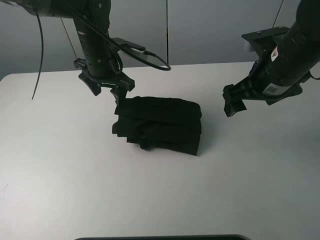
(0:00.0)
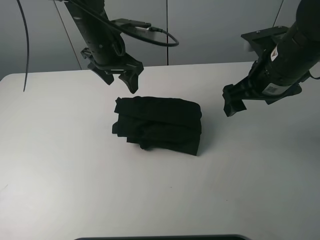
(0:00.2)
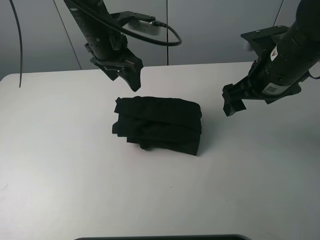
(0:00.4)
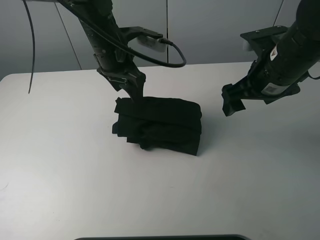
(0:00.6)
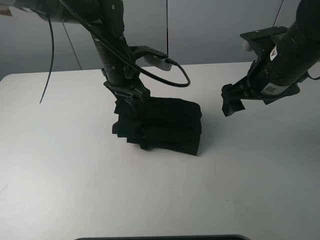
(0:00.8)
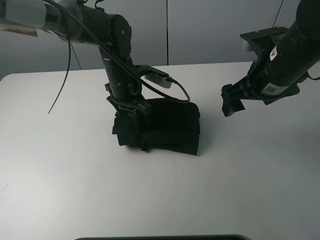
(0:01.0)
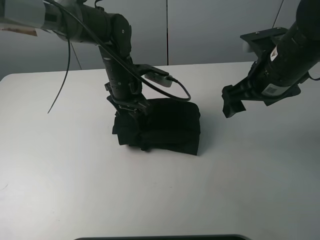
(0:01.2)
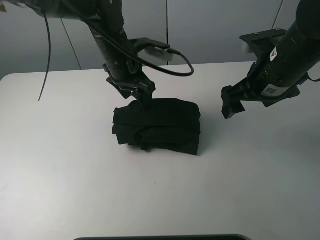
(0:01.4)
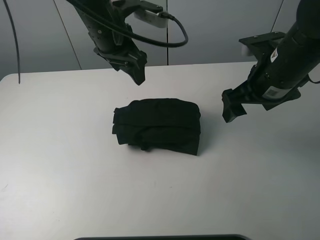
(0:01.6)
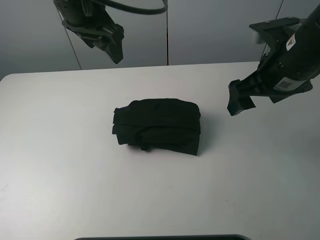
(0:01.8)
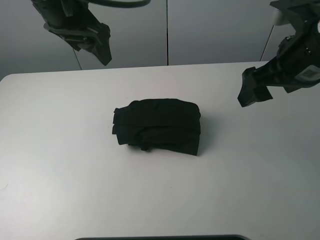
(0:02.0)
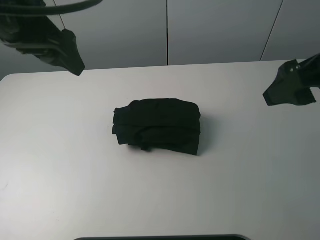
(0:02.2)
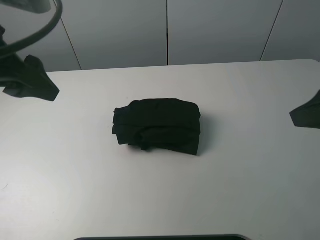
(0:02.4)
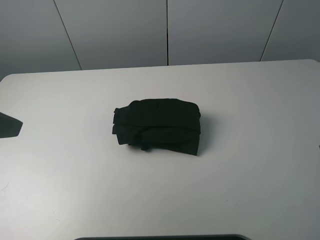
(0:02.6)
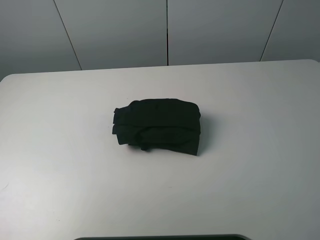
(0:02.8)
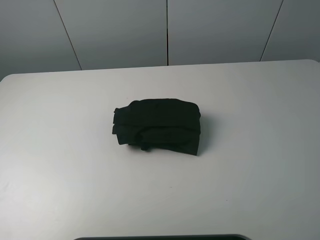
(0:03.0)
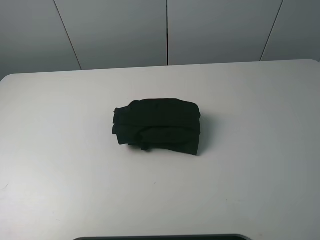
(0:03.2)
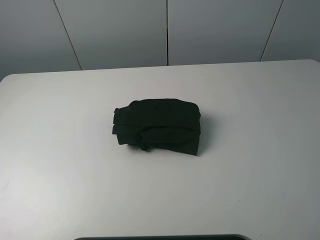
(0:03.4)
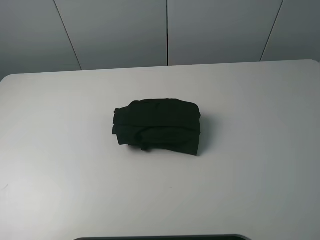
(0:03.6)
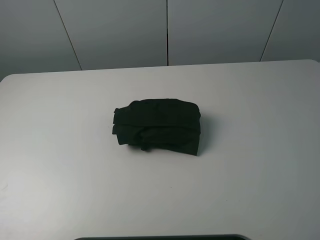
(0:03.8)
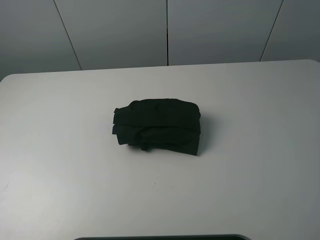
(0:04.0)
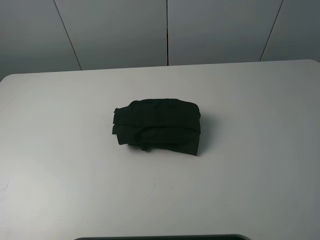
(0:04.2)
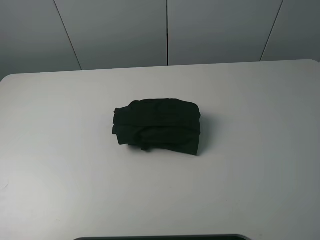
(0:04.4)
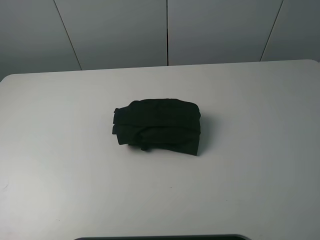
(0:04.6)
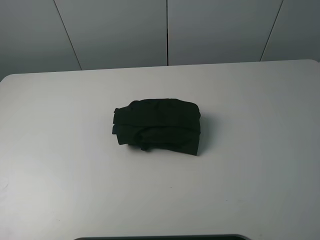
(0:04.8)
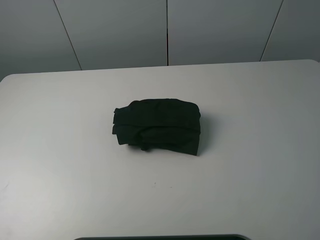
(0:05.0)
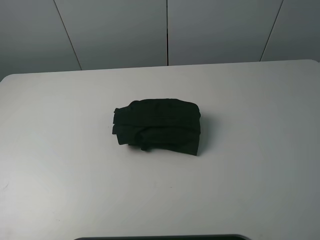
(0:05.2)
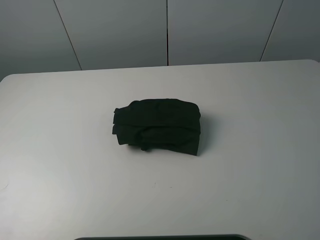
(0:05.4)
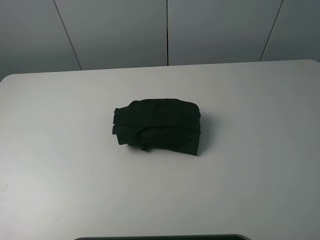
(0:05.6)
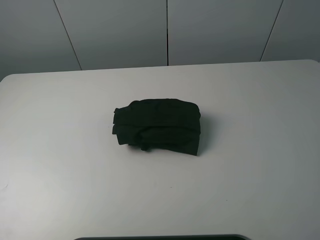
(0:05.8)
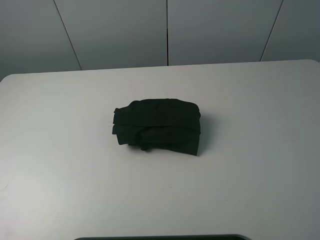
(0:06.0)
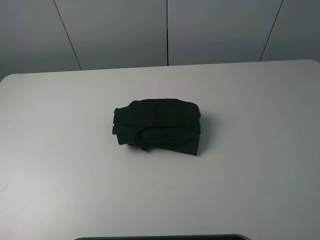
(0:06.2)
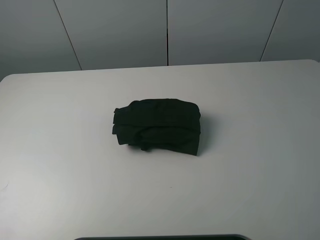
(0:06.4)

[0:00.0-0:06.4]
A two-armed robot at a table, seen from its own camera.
Task of the whole recording: fold the clothes on the table.
0:00.0 to 0:01.6: The left gripper swings up and down, approximately 15 cm each way, with 2 reversals.
0:01.6 to 0:03.2: The right gripper goes approximately 25 cm backward; the left gripper travels backward and to the left by roughly 40 cm.

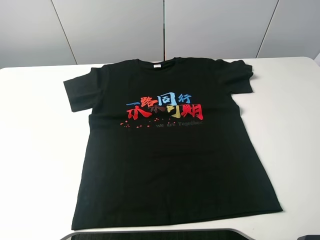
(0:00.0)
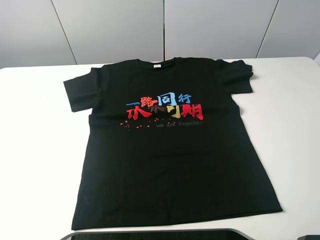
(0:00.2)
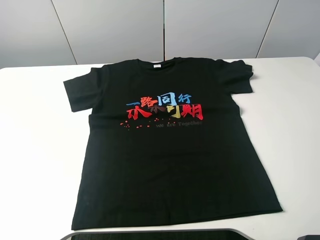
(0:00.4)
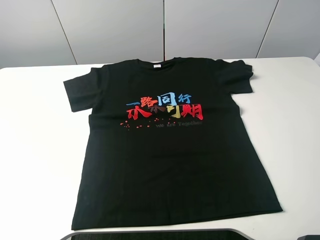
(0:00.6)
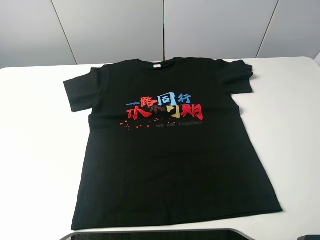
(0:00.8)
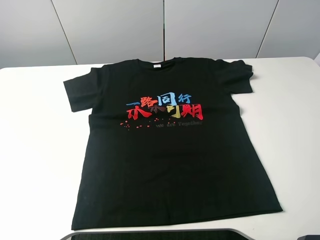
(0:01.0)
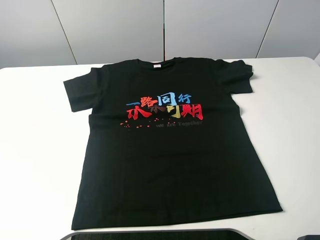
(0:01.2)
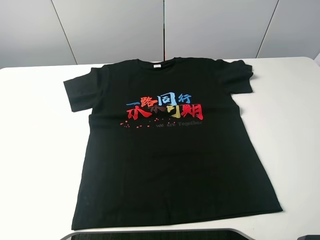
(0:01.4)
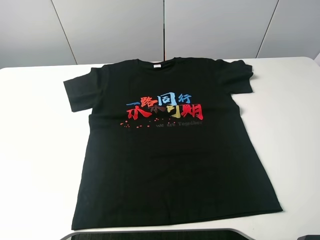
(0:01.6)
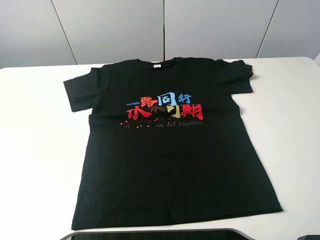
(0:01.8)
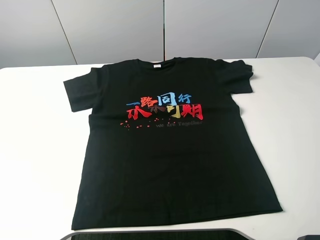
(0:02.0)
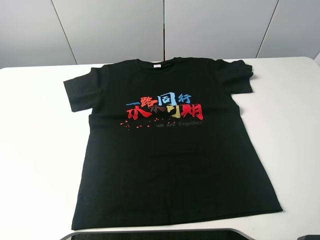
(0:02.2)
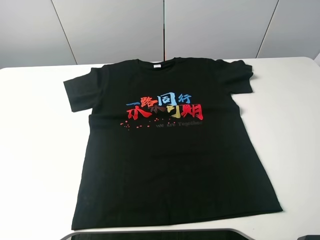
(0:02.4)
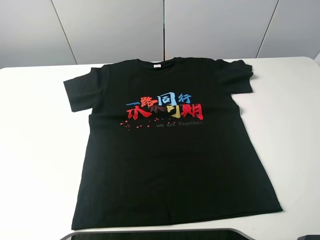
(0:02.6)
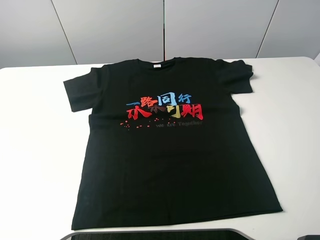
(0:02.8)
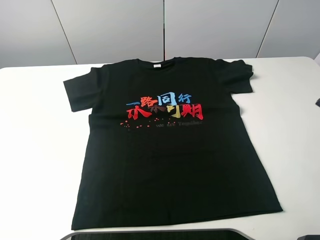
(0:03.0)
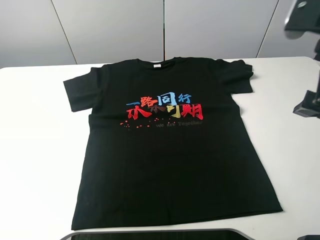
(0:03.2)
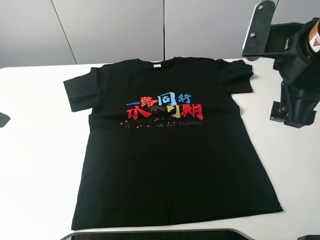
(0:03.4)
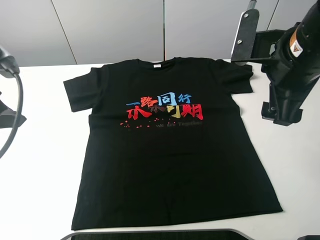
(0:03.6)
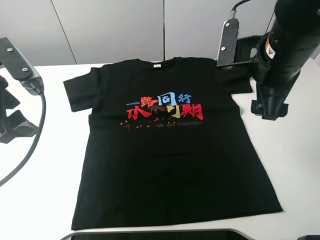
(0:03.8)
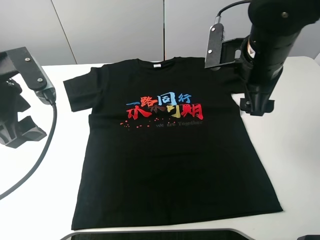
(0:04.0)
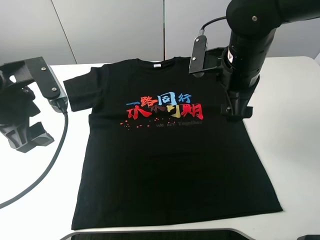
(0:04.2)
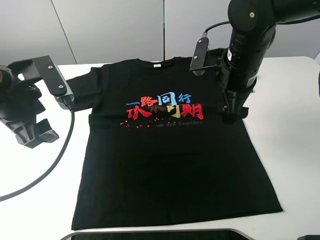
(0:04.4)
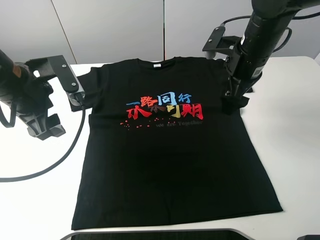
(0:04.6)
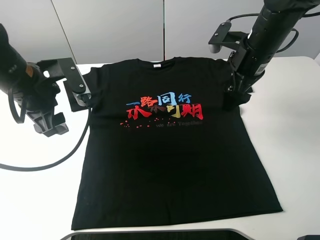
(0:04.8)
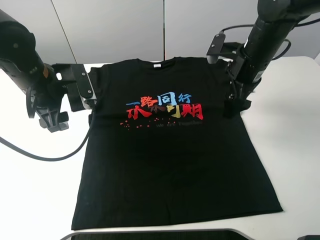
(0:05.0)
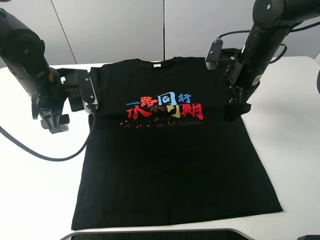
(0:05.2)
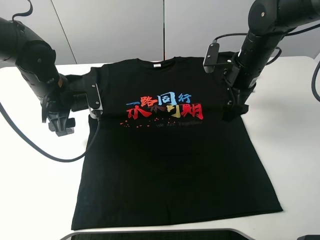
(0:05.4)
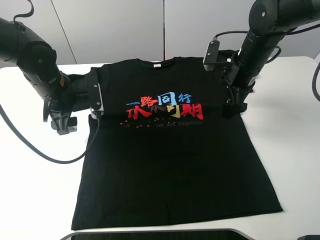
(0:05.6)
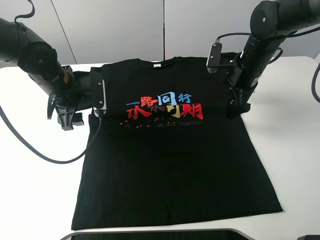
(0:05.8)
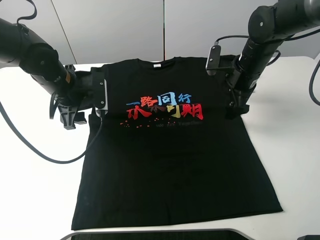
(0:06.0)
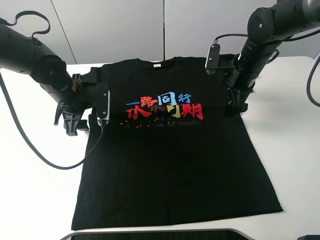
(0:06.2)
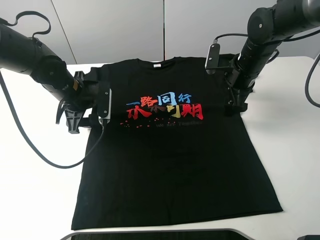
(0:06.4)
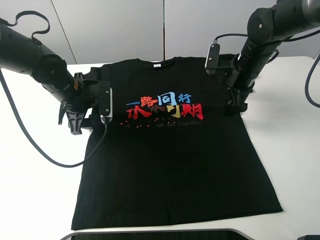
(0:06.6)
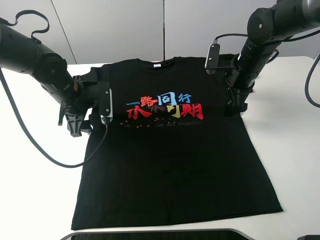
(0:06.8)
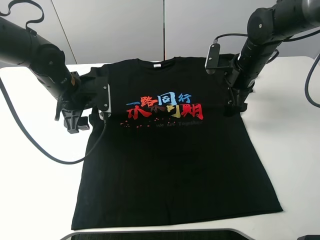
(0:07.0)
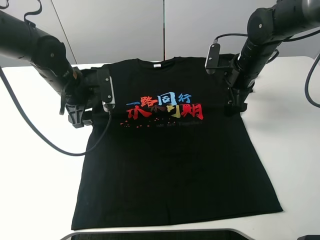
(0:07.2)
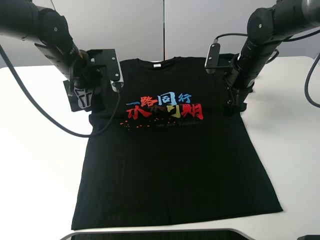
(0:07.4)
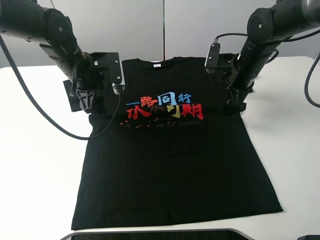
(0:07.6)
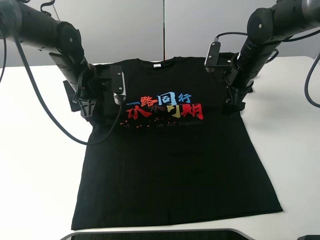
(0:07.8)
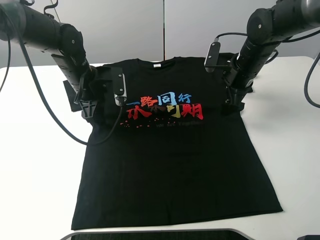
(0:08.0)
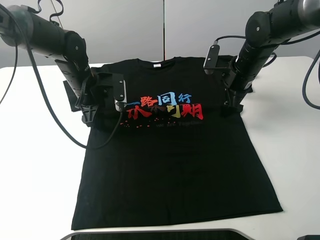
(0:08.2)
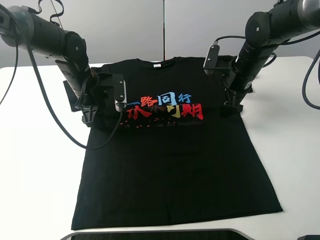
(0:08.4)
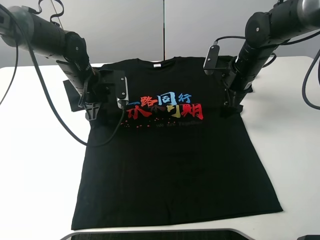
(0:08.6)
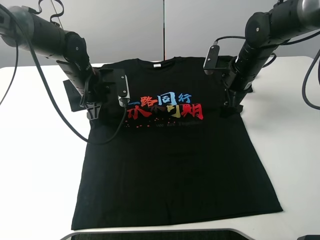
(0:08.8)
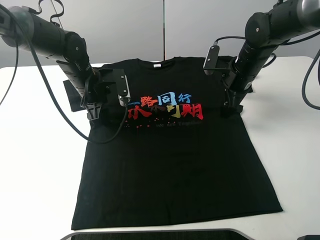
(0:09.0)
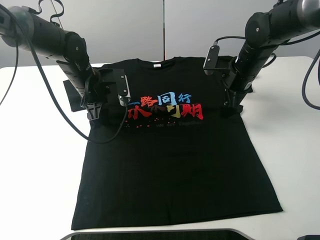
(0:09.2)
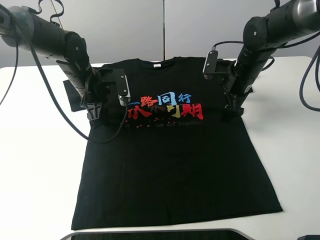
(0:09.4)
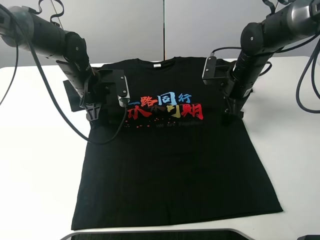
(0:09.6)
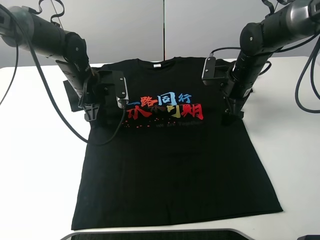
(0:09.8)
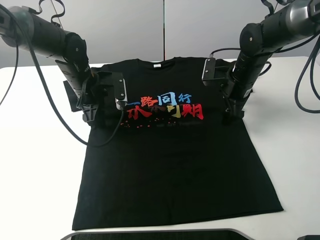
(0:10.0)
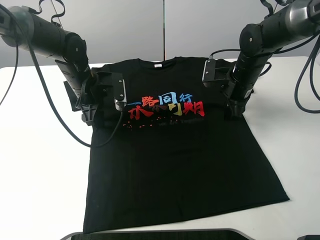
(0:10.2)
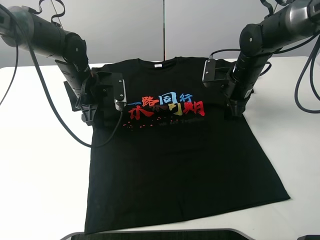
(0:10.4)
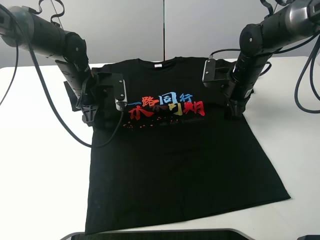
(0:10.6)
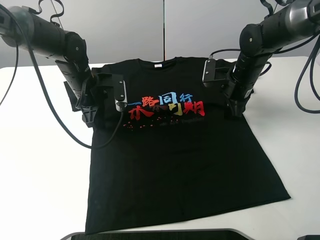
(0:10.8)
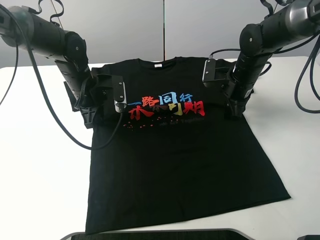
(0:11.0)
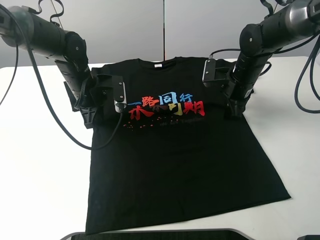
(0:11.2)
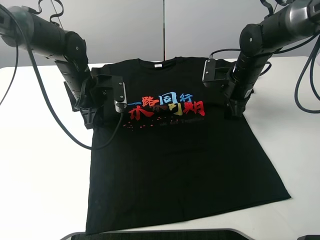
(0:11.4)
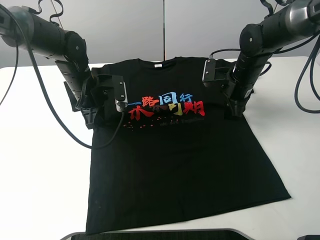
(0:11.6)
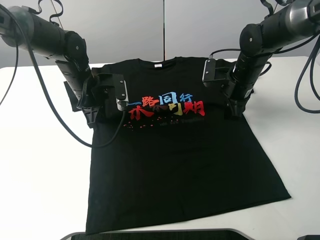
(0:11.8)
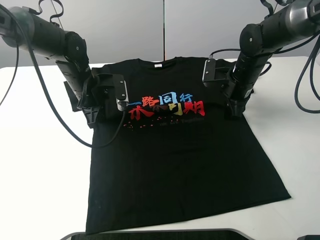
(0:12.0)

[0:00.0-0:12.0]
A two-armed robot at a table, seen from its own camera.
Task of the whole recording: fold the clothes on the table.
Step, 0:00.0 to 0:10.4: Lift the black T-shirt with the left gripper.
0:00.0 to 0:01.6: Both grippers stay put.
0:03.0 to 0:04.4: The right gripper moves forward, downward and to the left, roughly 20 cm, while the left gripper goes roughly 15 cm forward, downward and to the right.
0:04.4 to 0:06.0: The right gripper moves forward, downward and to the right, approximately 10 cm, while the left gripper moves forward and downward, some 15 cm.
0:06.0 to 0:09.0: The grippers stay close to where they were, moving slightly.
0:09.0 to 0:10.4: The right gripper closes.
0:10.4 to 0:12.0: The left gripper closes up.

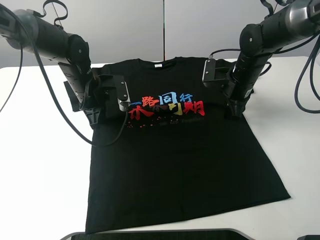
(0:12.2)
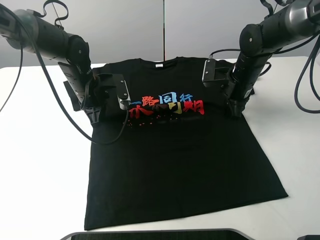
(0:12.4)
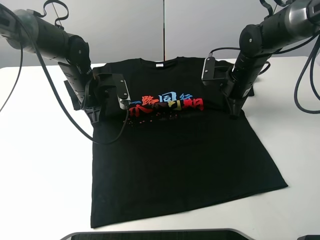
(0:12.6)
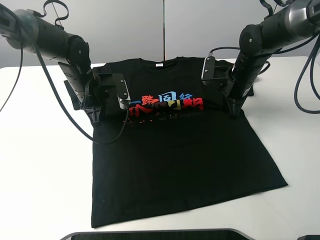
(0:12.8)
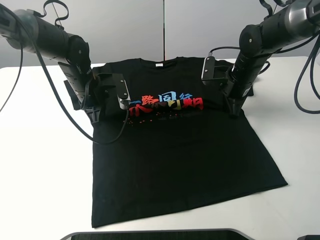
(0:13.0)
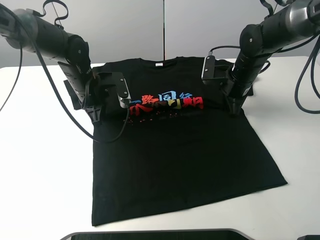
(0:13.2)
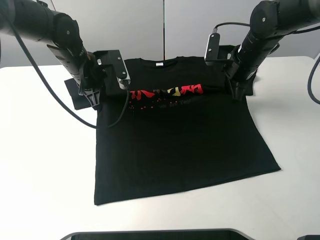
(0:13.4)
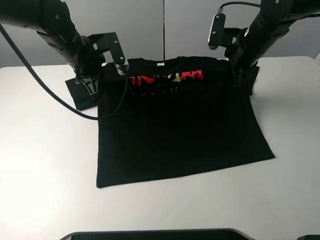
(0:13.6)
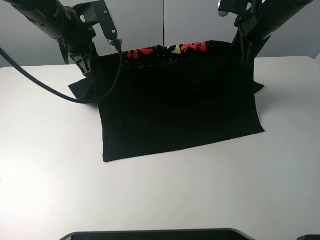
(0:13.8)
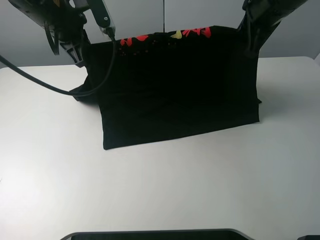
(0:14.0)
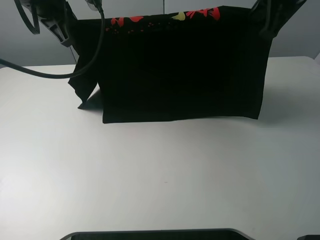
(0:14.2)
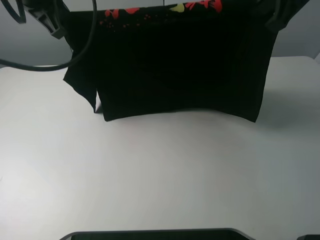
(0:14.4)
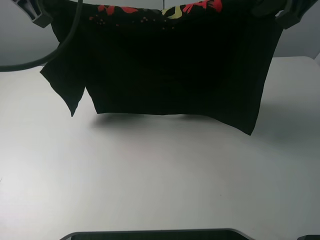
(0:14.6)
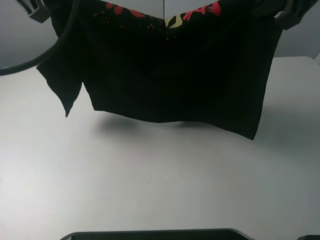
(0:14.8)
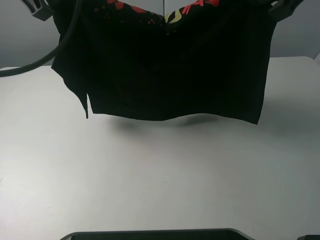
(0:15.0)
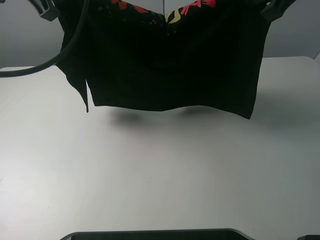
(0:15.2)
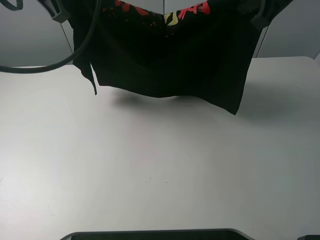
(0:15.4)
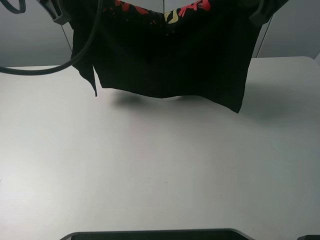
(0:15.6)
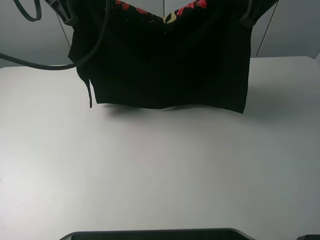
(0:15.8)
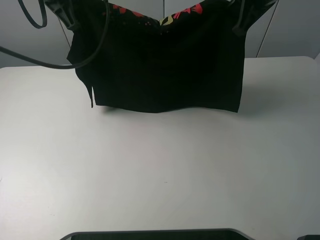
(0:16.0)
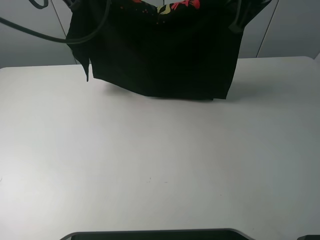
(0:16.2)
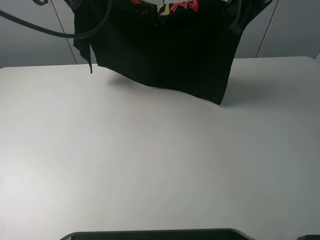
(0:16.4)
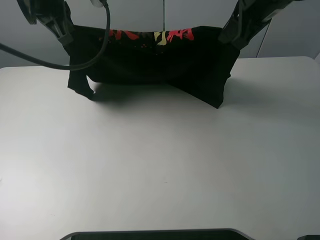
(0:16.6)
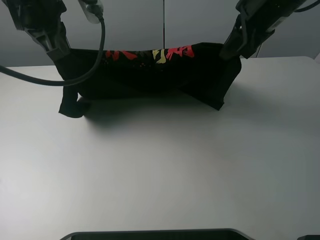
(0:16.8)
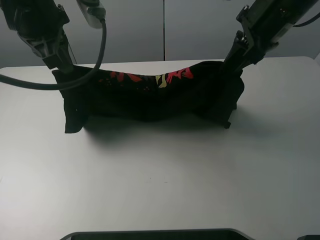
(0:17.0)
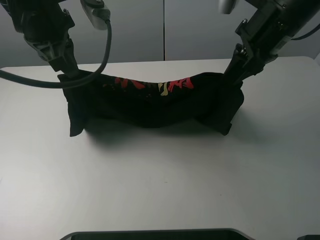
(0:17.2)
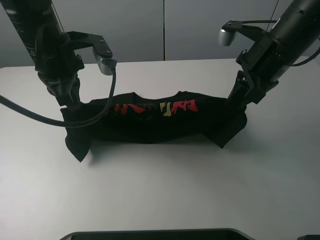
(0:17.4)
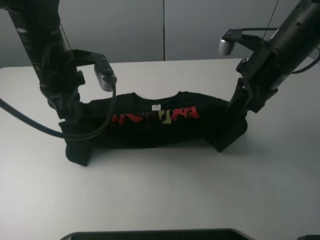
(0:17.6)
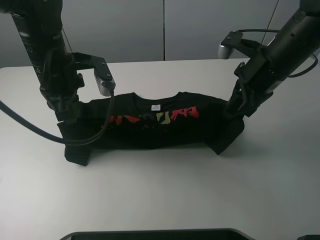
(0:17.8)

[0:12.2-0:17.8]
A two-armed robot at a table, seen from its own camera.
Task of the whole recording: fold the clothes on the table.
0:12.2 to 0:13.6: Both grippers move upward, some 10 cm. The right gripper closes up.
0:13.6 to 0:15.0: The grippers both shift upward and backward by about 20 cm.
0:15.0 to 0:16.4: The right gripper heads forward and downward, covering some 10 cm; the left gripper heads forward, covering roughly 5 cm.
0:16.4 to 0:17.8: The two grippers go about 15 cm downward and backward.
